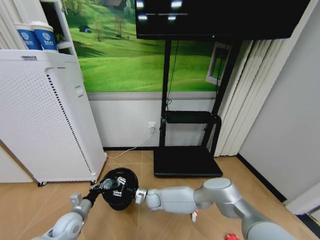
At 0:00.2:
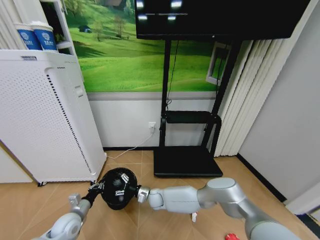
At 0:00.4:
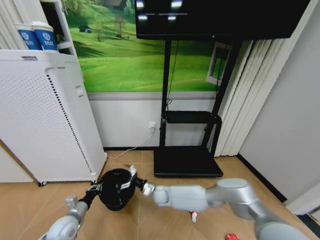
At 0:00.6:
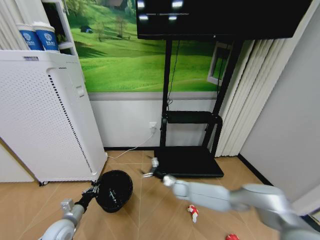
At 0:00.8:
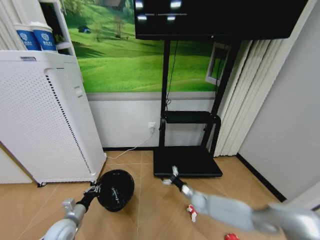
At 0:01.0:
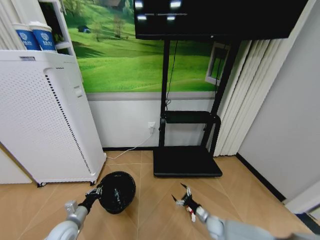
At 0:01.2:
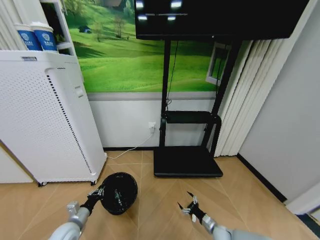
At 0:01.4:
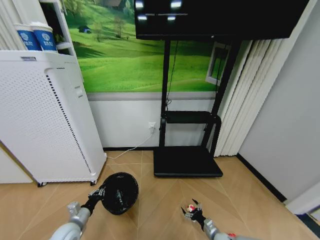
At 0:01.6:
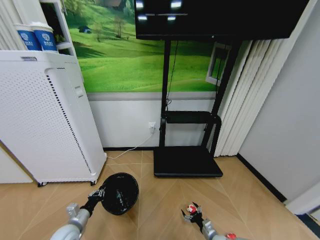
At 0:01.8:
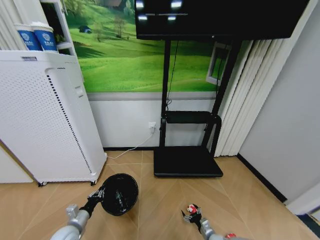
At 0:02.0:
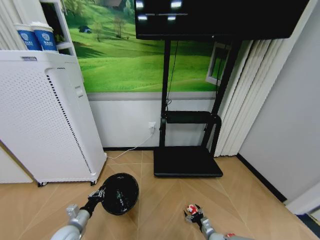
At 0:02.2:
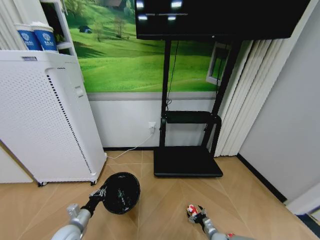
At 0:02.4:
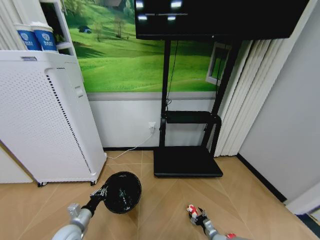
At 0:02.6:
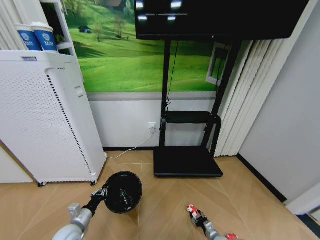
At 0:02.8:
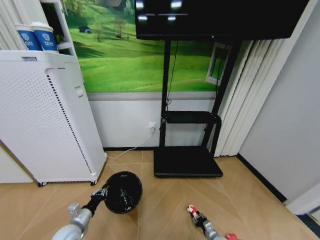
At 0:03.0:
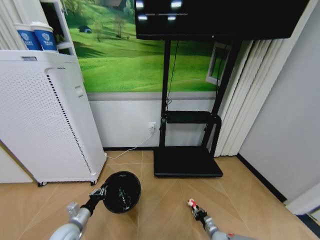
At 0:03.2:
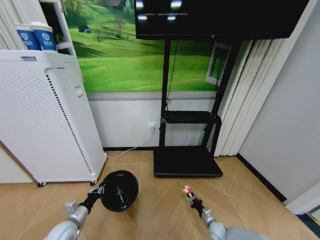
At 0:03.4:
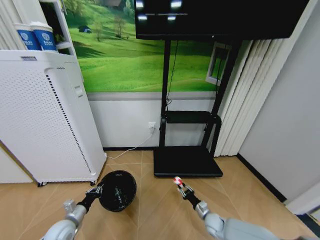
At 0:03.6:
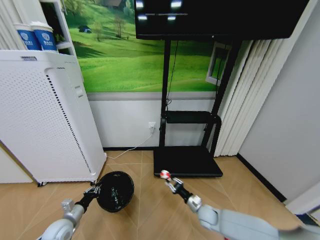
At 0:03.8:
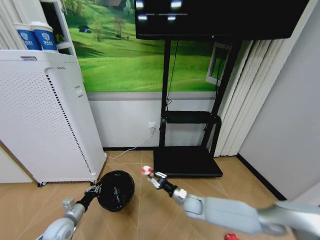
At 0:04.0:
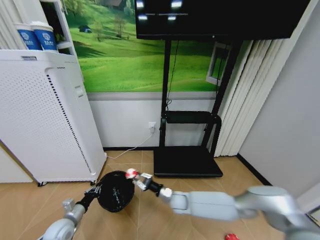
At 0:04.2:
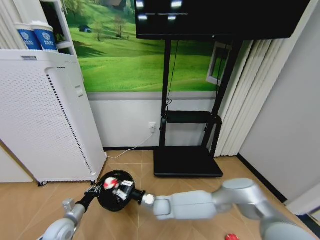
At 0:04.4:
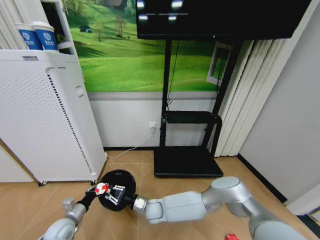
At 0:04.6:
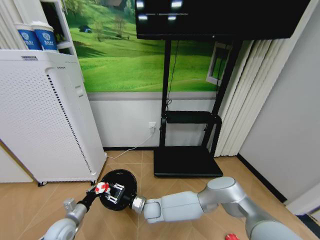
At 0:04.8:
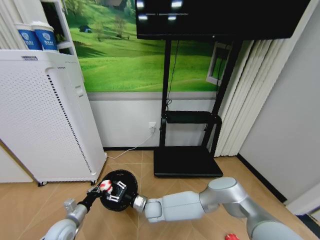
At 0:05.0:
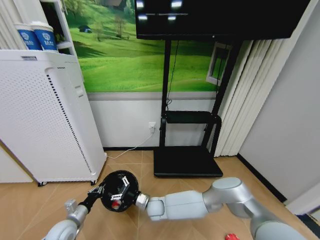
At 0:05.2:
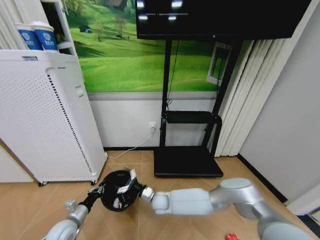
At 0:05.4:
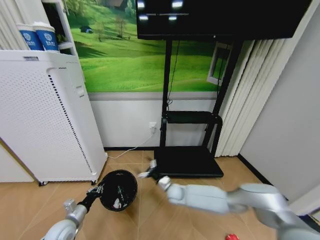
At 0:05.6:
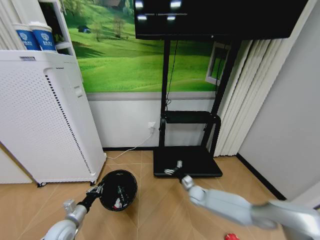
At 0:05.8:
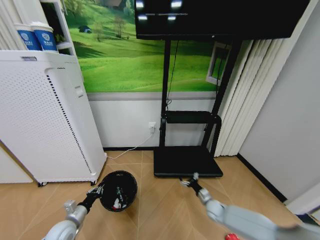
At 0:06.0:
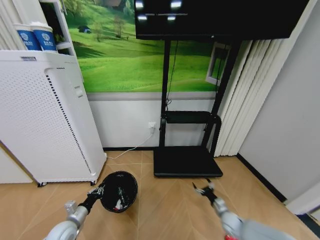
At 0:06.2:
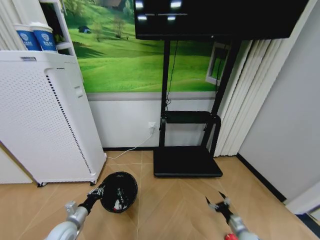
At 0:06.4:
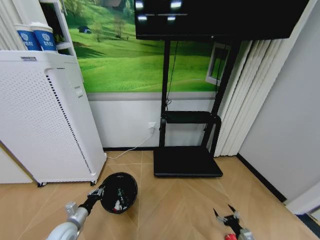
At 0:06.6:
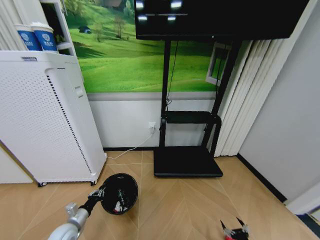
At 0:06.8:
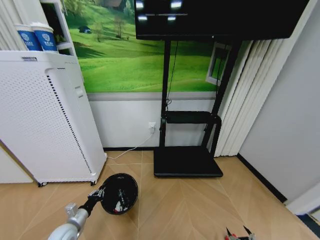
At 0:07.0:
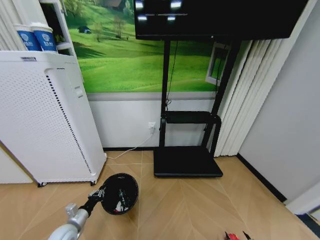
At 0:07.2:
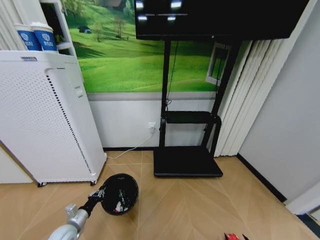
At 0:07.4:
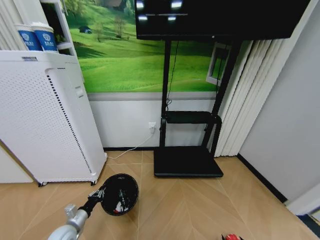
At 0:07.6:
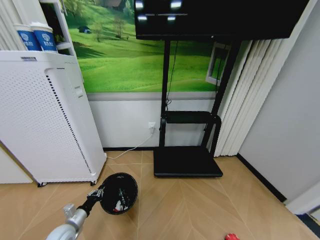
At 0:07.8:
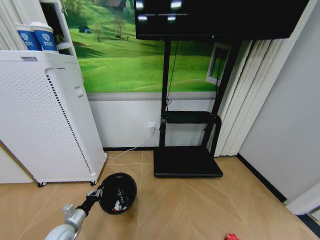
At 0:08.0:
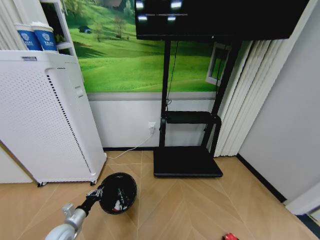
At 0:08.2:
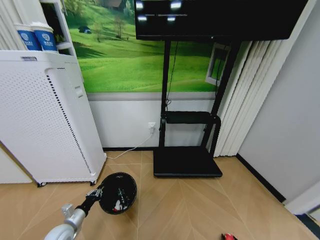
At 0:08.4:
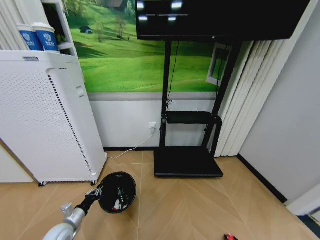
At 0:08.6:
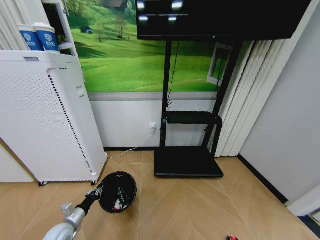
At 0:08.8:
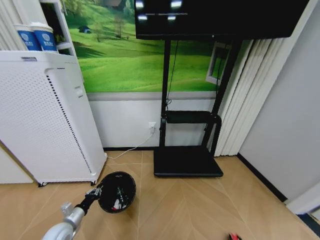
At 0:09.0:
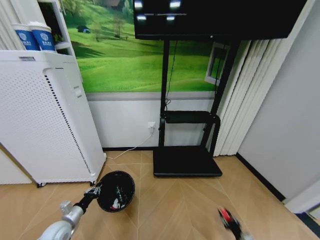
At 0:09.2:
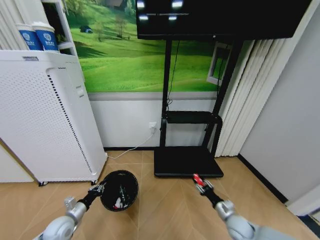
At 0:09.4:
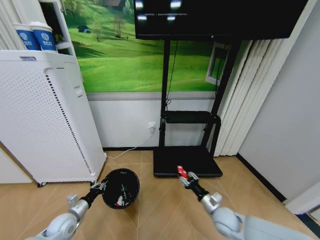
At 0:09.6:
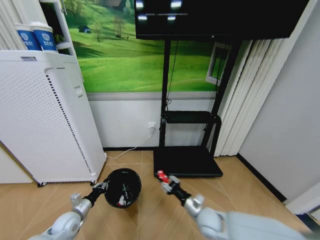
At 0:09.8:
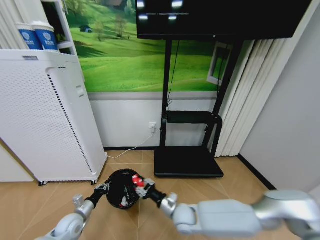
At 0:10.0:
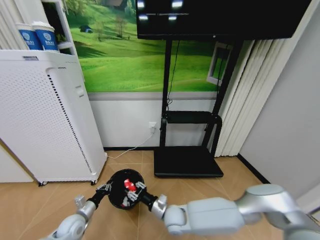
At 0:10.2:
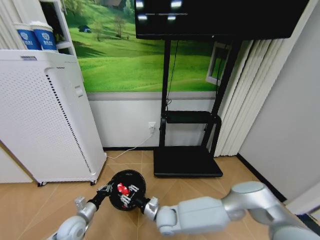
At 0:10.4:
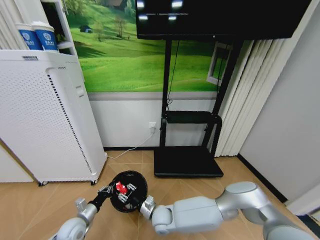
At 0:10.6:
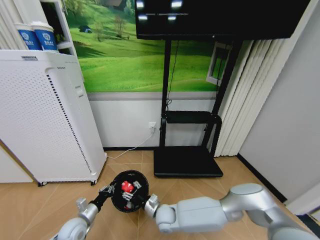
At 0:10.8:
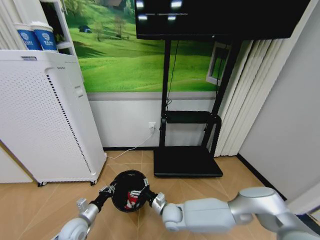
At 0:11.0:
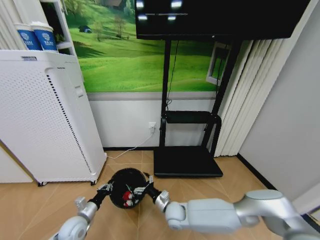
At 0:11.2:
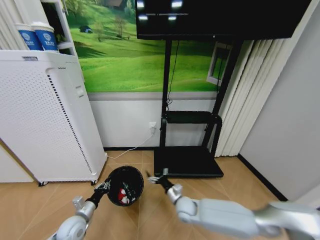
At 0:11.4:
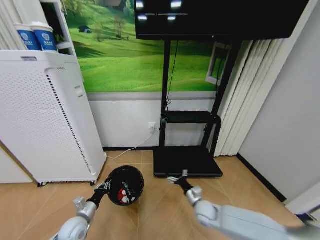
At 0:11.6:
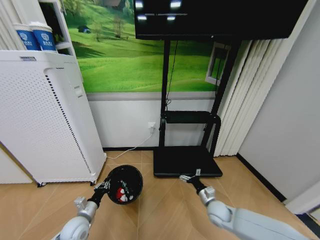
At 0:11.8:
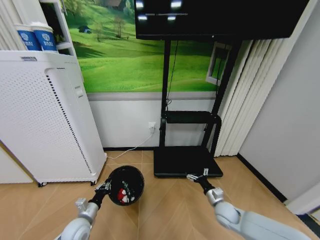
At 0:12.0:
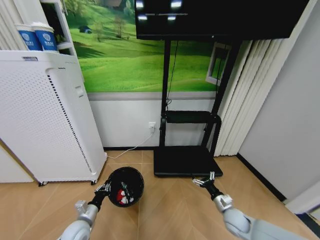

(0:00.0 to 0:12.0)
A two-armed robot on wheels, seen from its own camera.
Task of the whole recording: Pick up the trash bin and place the garbage on the floor into it.
0:00.0 - 0:01.6: The right gripper shifts approximately 40 cm to the right and backward, and opens its fingers.
0:01.6 - 0:03.0: The right gripper closes its fingers.
0:03.0 - 0:04.4: The right gripper heads to the left and upward, covering some 40 cm.
0:04.4 - 0:06.0: The right gripper is displaced to the right by some 40 cm, and opens.
0:06.0 - 0:07.6: The right gripper travels backward and downward by some 20 cm.
0:07.6 - 0:09.0: The right gripper goes about 10 cm forward and upward, and closes up.
0:09.0 - 0:10.4: The left gripper goes some 5 cm to the right, while the right gripper heads to the left, covering about 40 cm.
0:10.4 - 0:12.0: The right gripper shifts some 35 cm to the right, and opens up.

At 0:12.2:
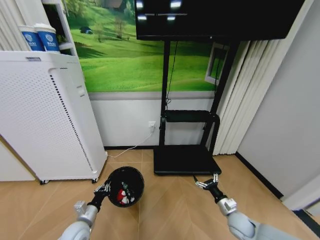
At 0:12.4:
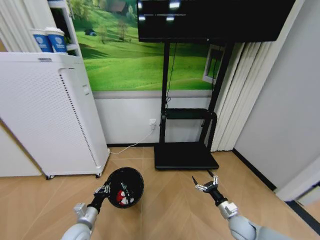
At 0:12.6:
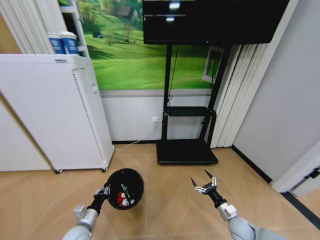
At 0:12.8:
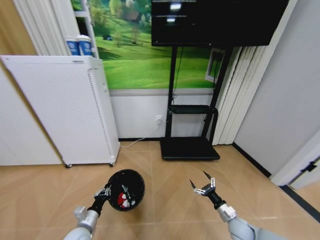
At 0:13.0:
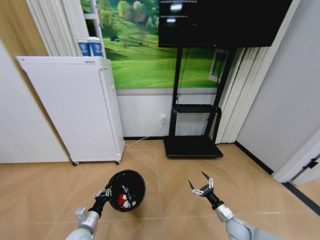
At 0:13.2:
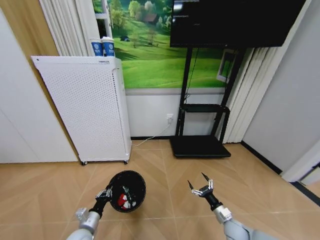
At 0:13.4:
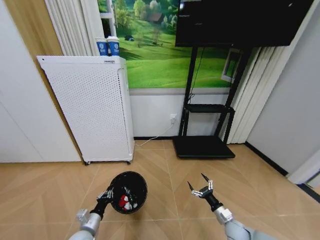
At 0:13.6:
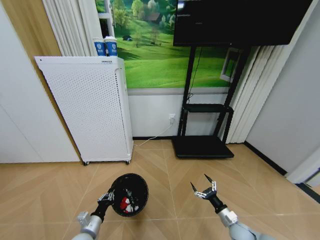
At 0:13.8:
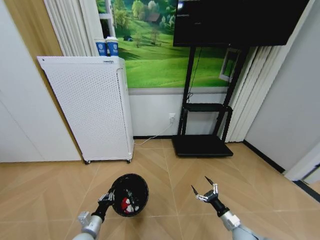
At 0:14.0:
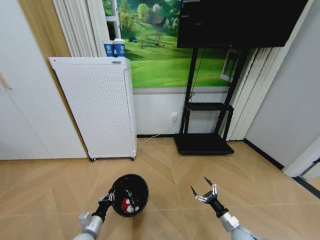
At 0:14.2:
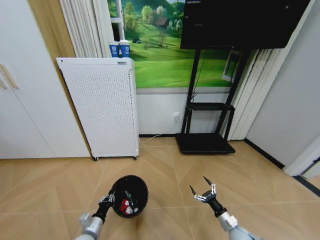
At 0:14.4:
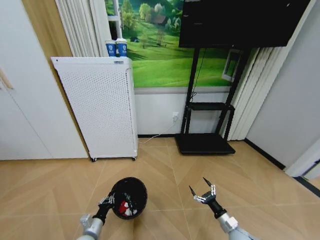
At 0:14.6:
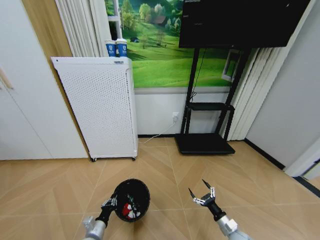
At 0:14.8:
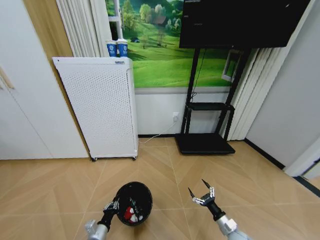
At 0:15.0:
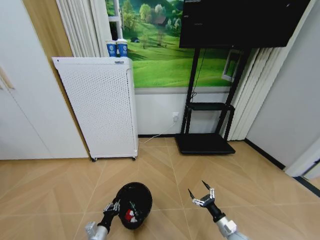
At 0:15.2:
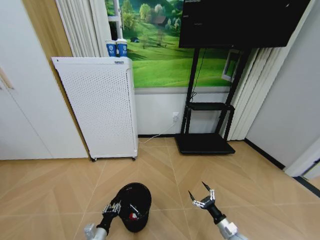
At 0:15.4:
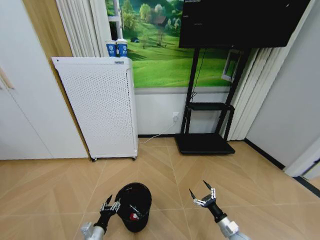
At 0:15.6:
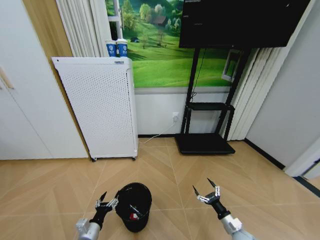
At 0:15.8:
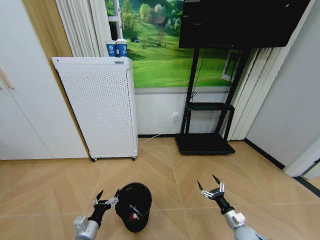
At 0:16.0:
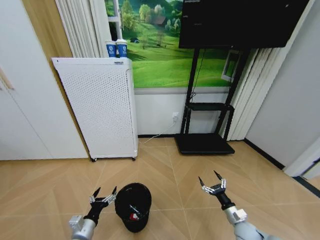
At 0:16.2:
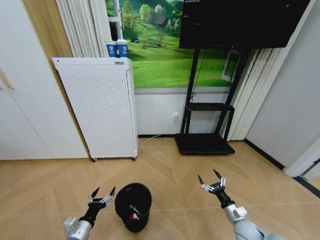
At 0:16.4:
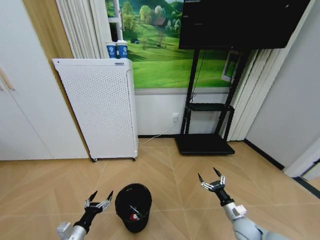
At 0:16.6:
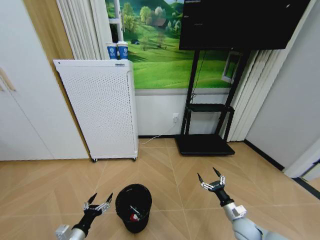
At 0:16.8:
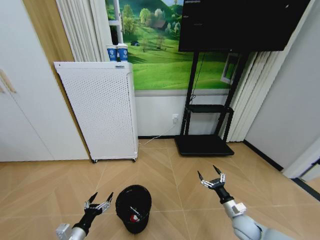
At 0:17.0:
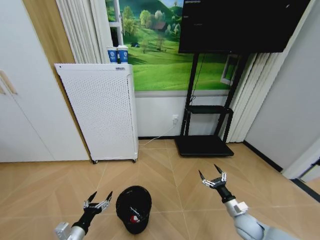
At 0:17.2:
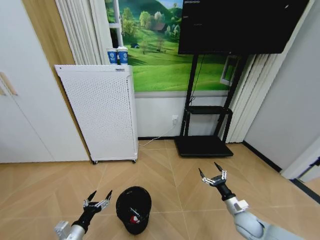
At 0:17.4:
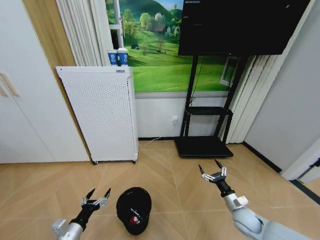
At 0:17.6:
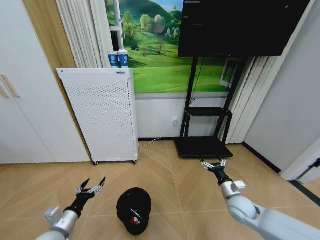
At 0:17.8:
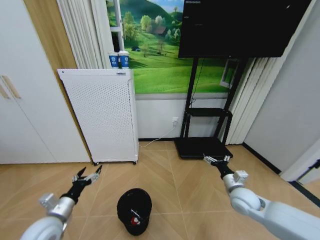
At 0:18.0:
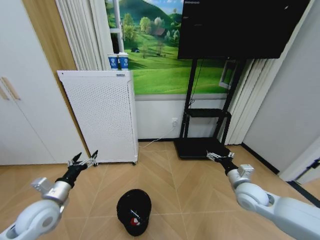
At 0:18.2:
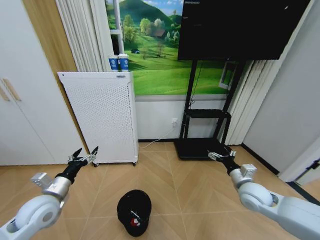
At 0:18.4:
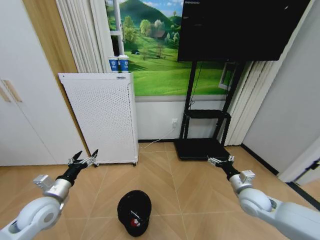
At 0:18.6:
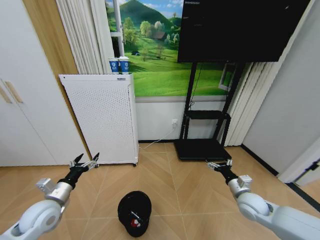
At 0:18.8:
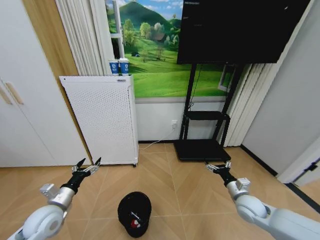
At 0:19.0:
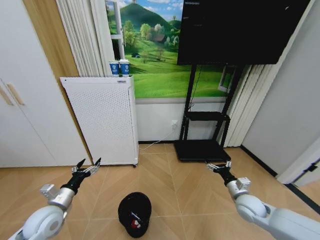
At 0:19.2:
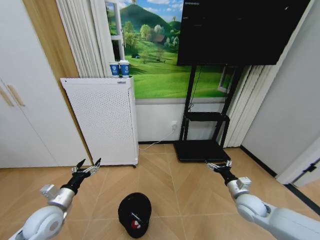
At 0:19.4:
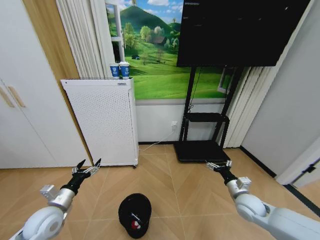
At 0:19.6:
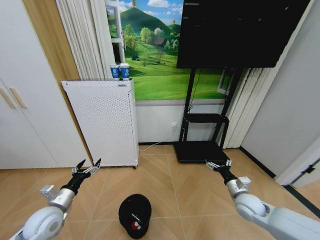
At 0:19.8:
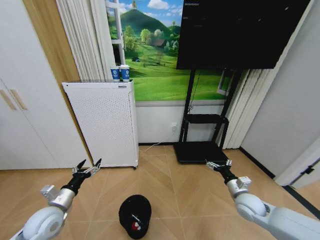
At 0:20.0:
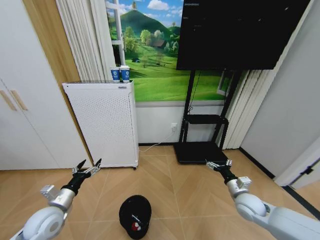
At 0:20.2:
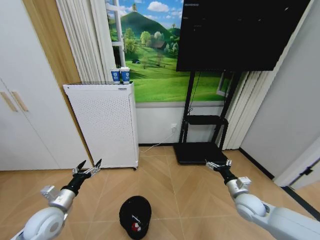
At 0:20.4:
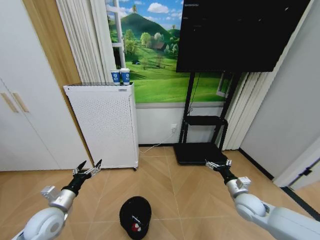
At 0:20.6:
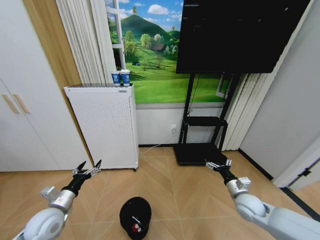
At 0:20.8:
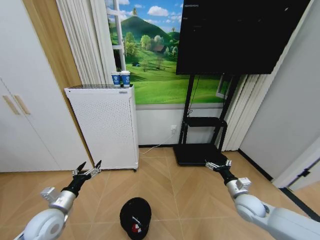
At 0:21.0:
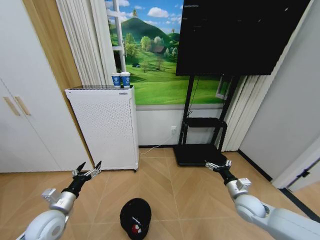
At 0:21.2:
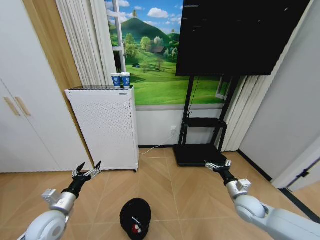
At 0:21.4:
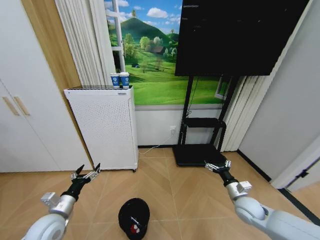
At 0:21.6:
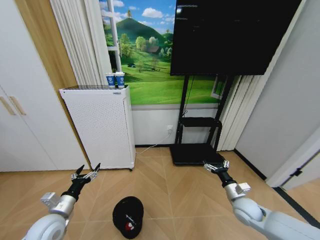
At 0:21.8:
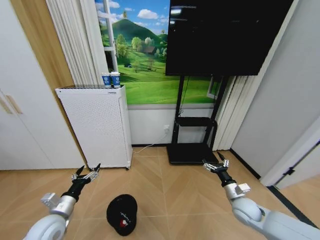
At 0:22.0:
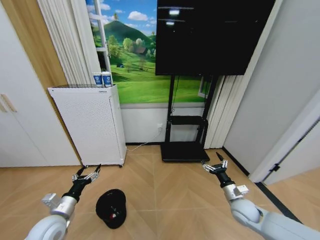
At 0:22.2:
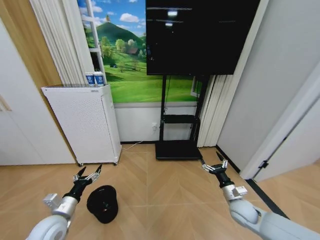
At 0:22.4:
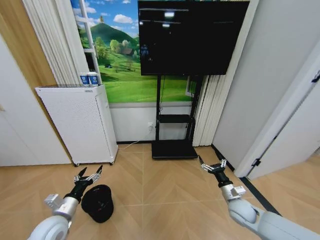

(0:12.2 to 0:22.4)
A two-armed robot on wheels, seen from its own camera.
Task of the whole recording: Pick up the trash bin and place the garbage on the floor into it.
0:13.6 - 0:15.2: The left gripper shifts roughly 5 cm downward.
0:15.2 - 0:16.6: The right gripper heads upward, covering approximately 5 cm; the left gripper moves upward and to the left, some 10 cm, and opens.
0:16.6 - 0:18.0: The right gripper travels upward by about 20 cm; the left gripper shifts roughly 20 cm upward and forward.
0:18.0 - 0:19.4: The left gripper changes place by some 5 cm. The right gripper moves downward, about 5 cm.
0:19.4 - 0:21.0: Both grippers stay about where they are.
